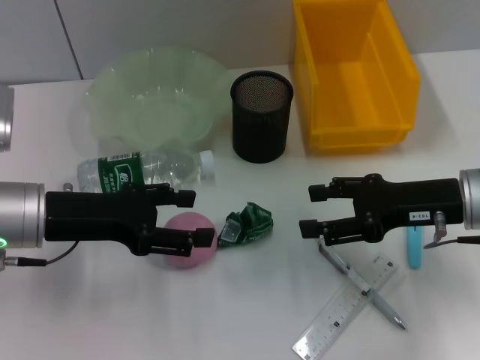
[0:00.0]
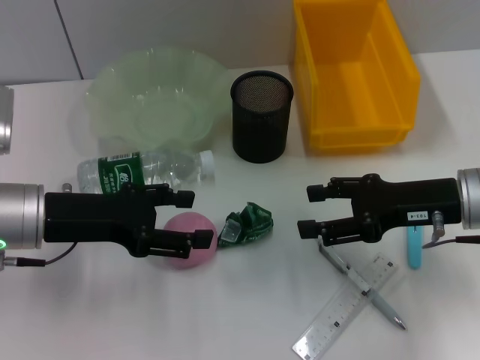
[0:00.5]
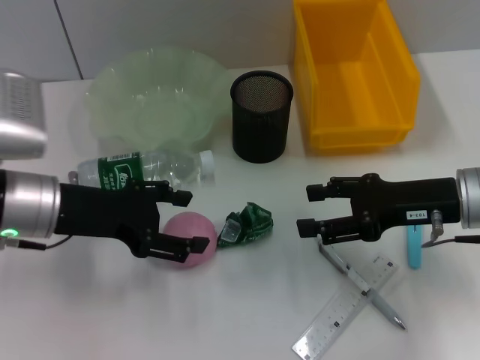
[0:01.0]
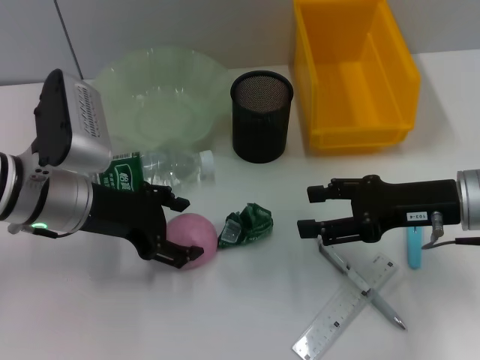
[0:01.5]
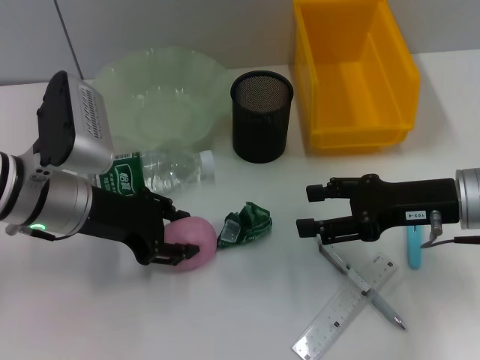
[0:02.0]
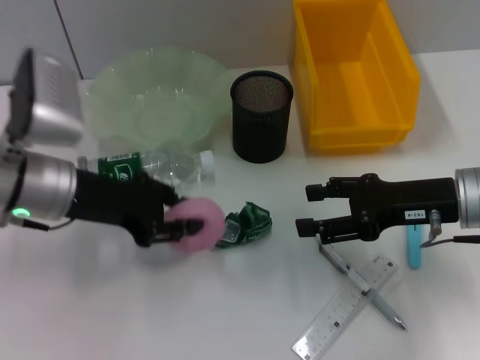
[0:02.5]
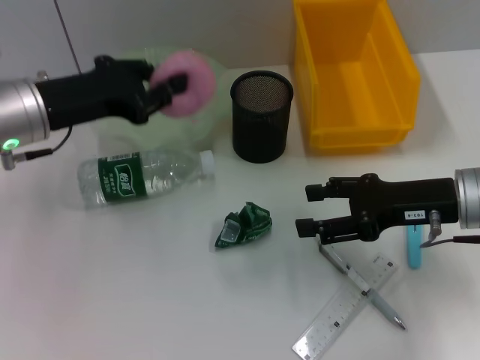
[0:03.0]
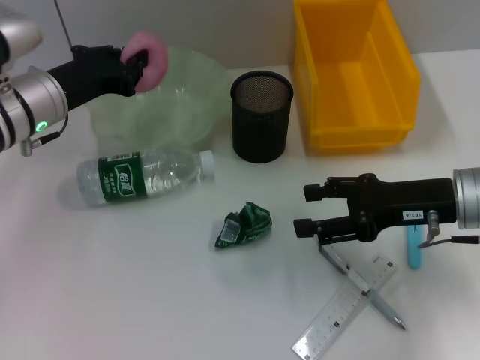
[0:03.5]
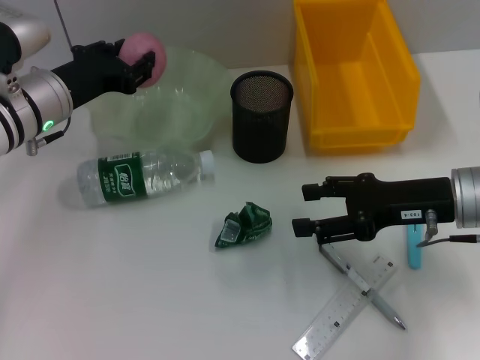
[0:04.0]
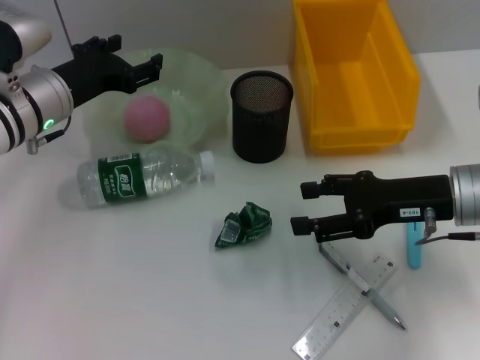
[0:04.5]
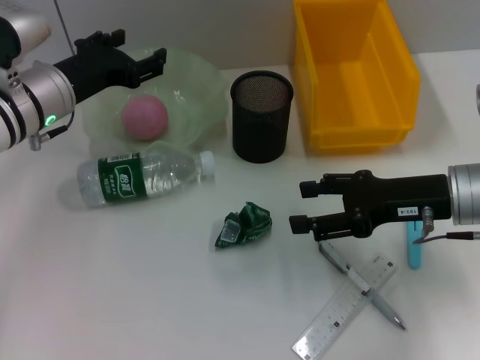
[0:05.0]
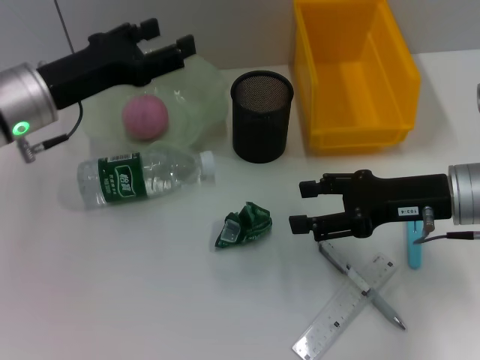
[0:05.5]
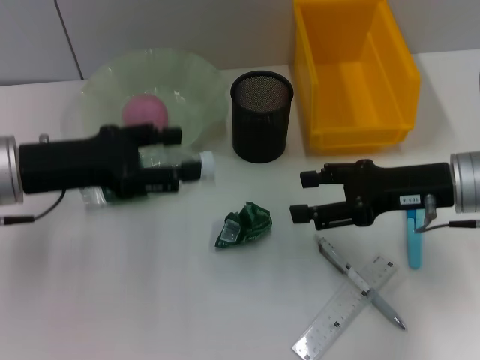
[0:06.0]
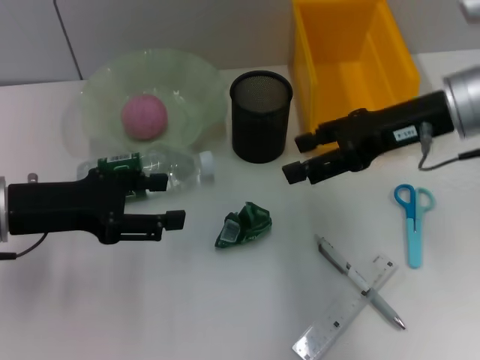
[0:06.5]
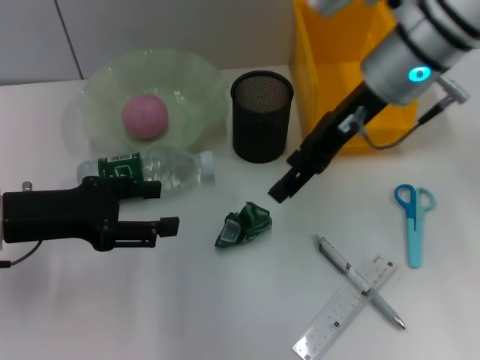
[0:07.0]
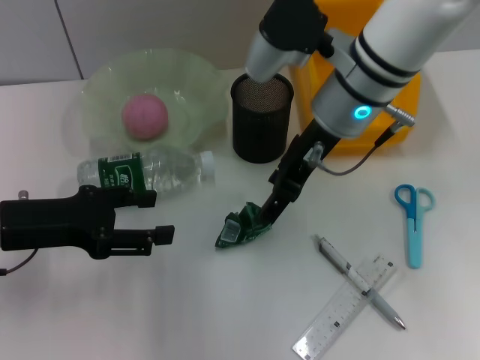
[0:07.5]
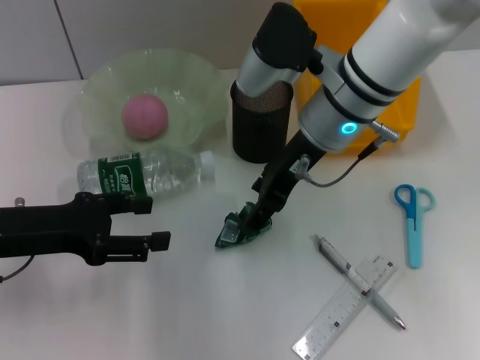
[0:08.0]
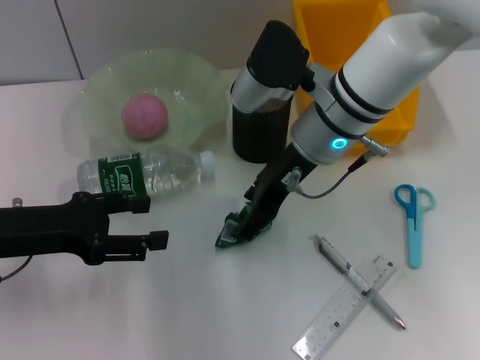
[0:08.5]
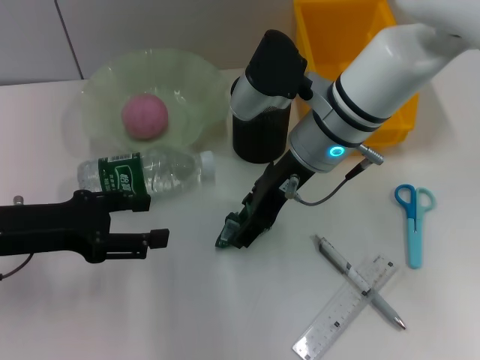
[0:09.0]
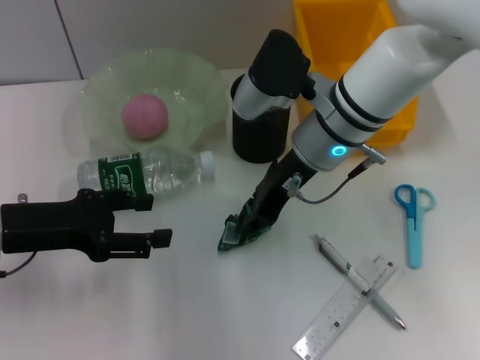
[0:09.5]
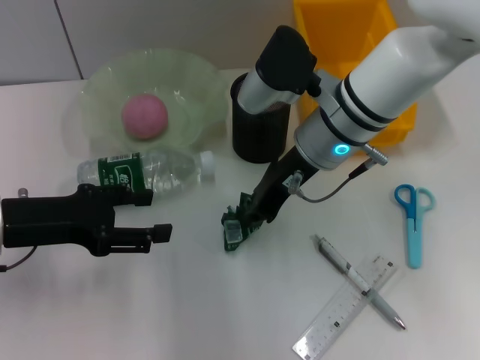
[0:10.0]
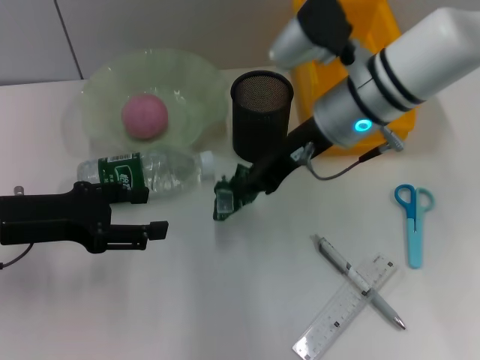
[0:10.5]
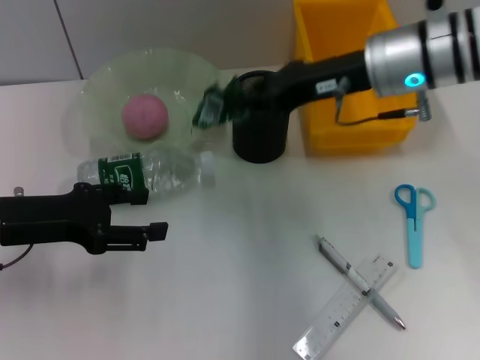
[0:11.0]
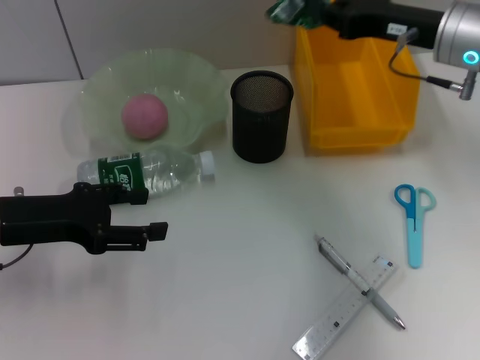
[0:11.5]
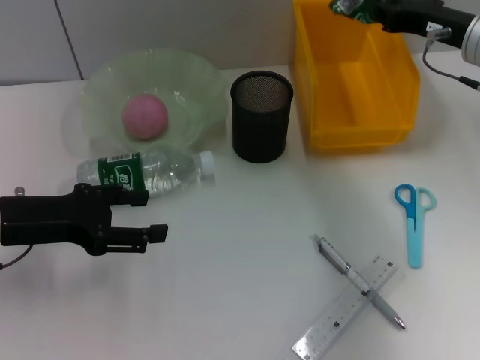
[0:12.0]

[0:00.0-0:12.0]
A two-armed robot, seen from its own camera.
Step, 0:00.0 to 0:01.5: Grab the peach with the left hand.
Step, 0:02.5 to 0:04.5: Place the peach into the fruit bowl with the left hand.
Step, 0:05.0 to 0:09.5: Grab the plastic with the right hand.
0:00.0 to 0:02.0: The left gripper closes up.
0:02.0 to 0:04.0: The left gripper heads forward, covering about 10 cm, and closes its fingers.
0:04.0 to 0:06.0: The left gripper moves backward, roughly 10 cm, and opens.
0:06.0 to 0:08.0: The right gripper heads to the left and forward, covering some 15 cm. Meanwhile the left gripper moves approximately 5 cm.
0:08.0 to 0:10.0: The right gripper closes up.
0:10.0 to 0:12.0: The right gripper travels to the right by about 20 cm.

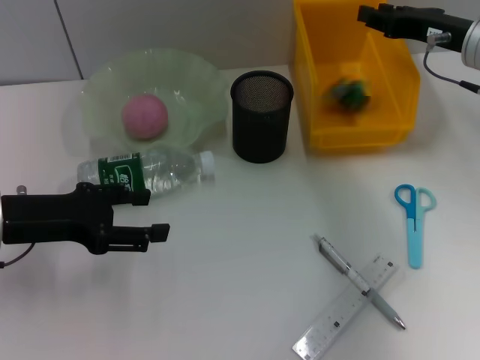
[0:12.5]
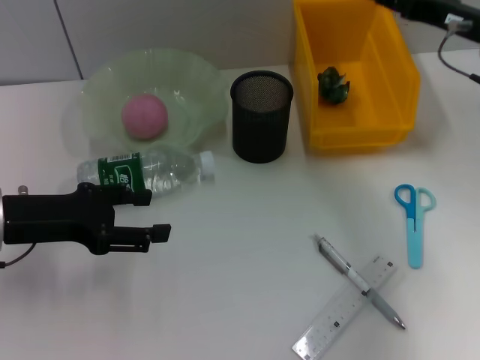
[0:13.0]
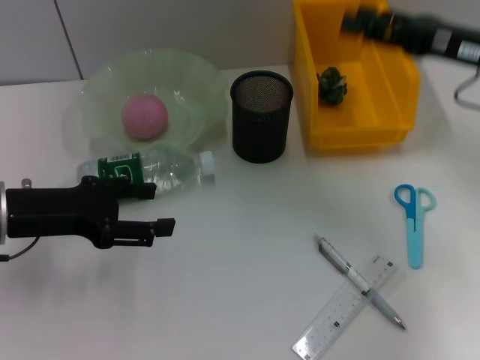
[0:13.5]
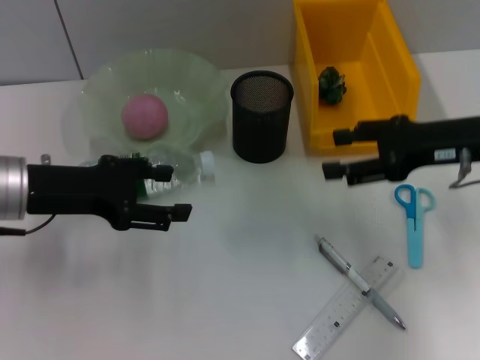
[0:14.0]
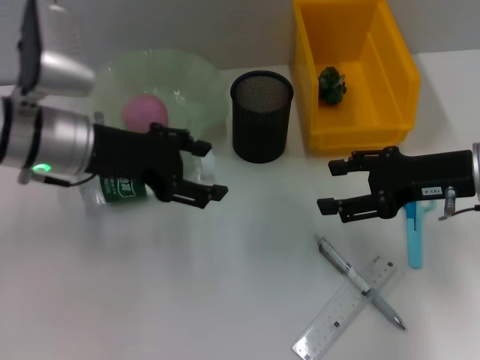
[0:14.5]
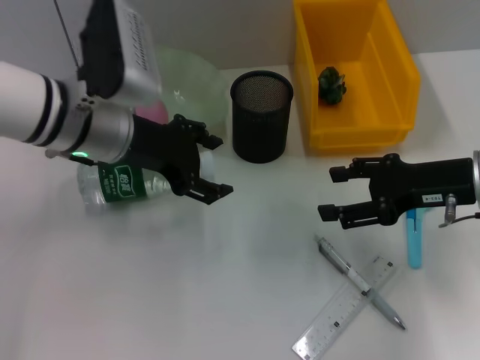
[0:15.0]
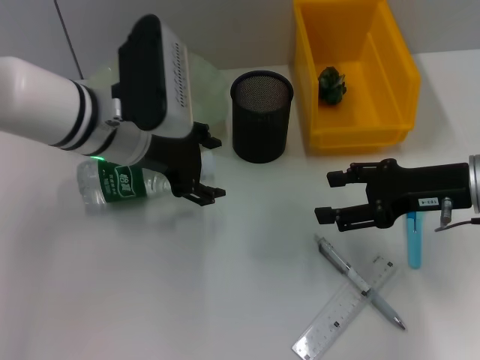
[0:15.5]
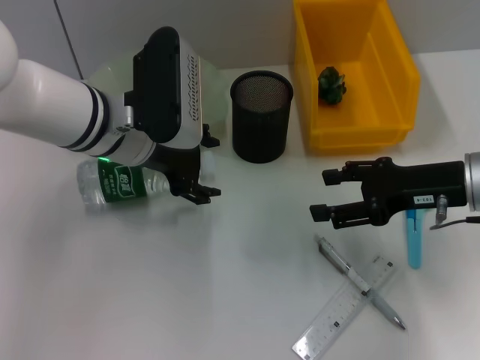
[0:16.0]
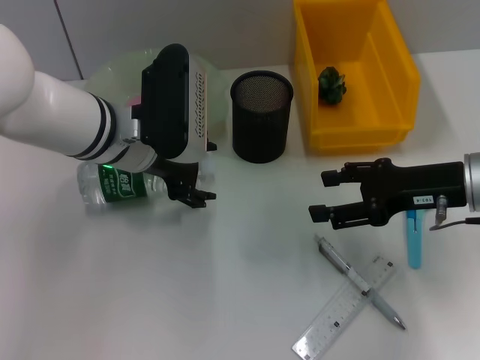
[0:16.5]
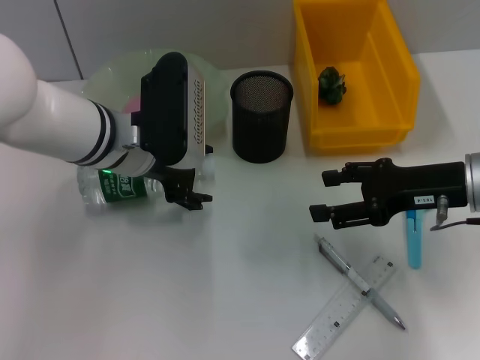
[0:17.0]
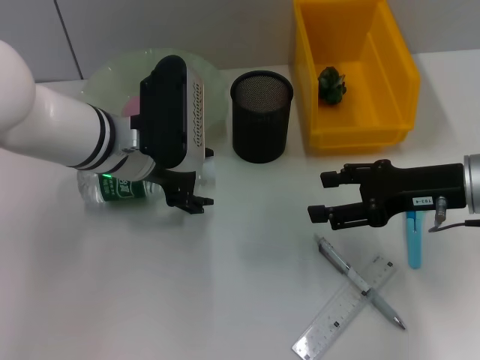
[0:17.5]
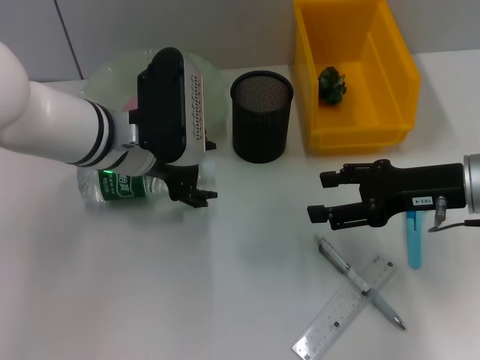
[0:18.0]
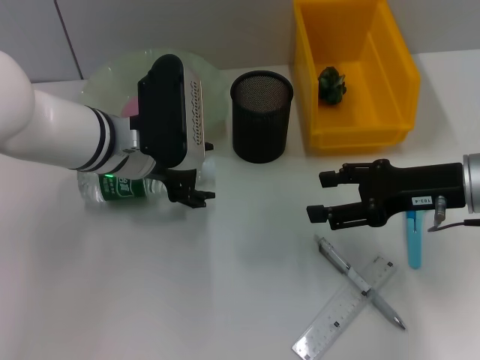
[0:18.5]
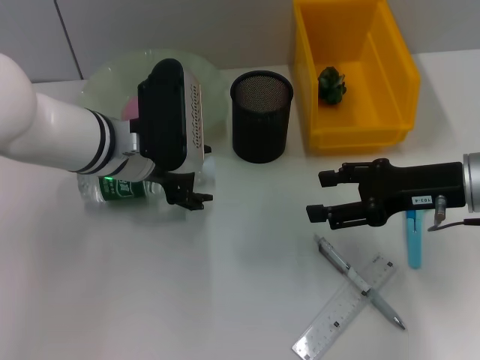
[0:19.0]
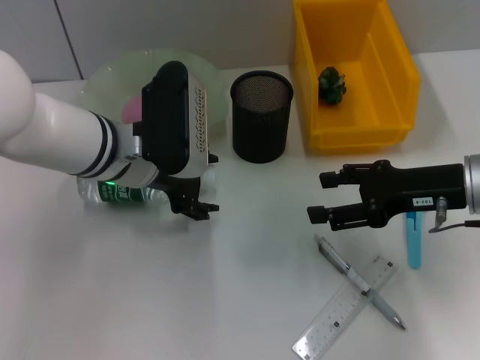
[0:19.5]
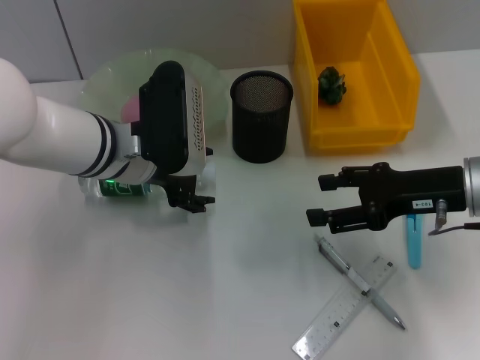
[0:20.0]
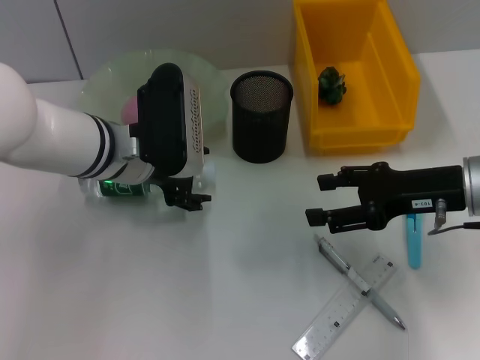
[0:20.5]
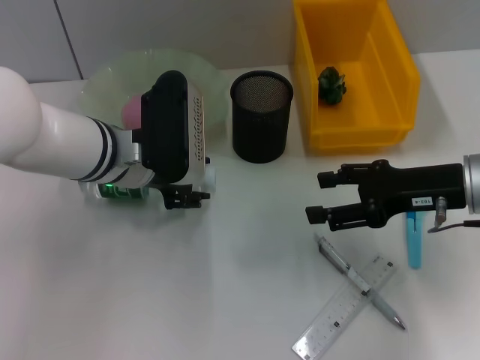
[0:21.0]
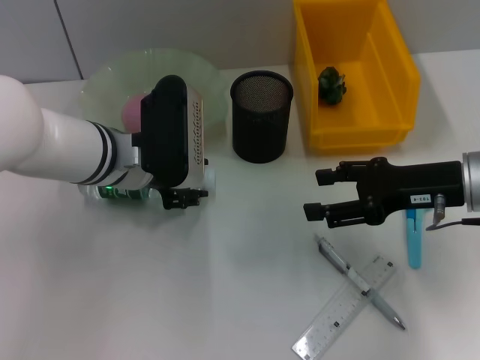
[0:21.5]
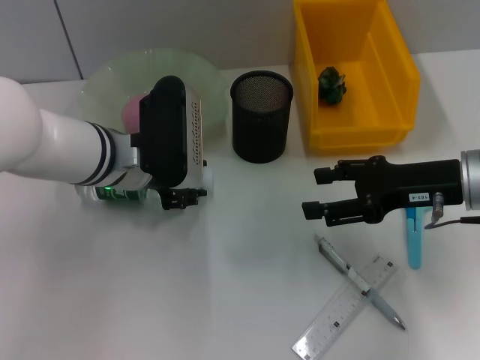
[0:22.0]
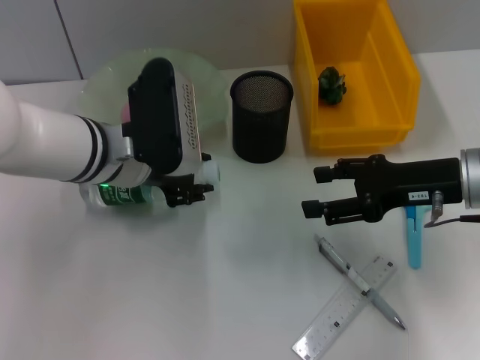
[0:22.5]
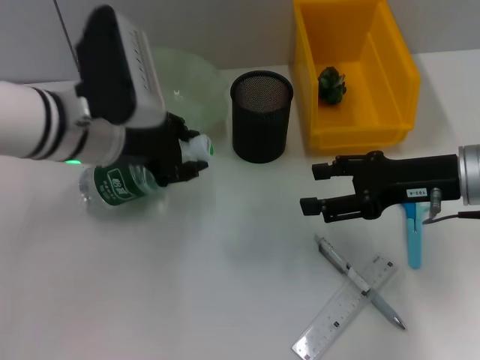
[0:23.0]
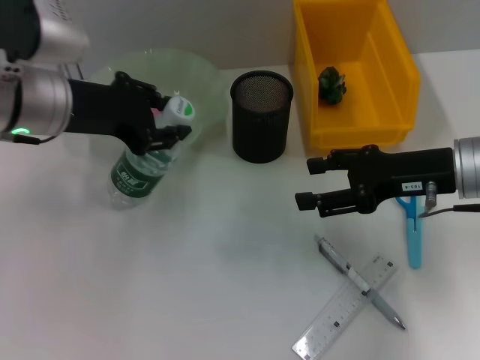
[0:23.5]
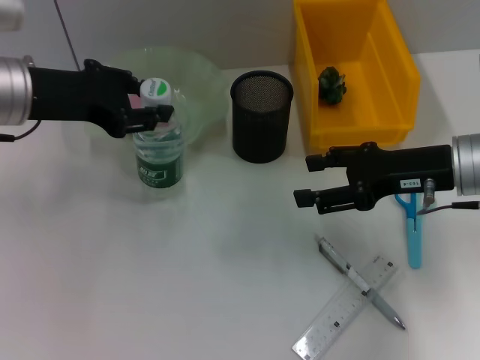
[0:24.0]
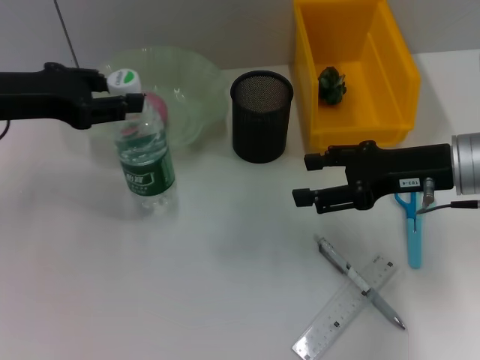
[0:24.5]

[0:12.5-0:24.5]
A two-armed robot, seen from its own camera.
Step, 0:13.0 to 0:22.0: Grab the water bottle with the left hand.
0:12.5 to 0:14.5: The left gripper is displaced to the right and forward by some 10 cm. Meanwhile the right gripper travels backward by approximately 10 cm, and opens up.
0:14.5 to 0:16.5: The left gripper shifts some 5 cm to the right.
0:16.5 to 0:18.5: Both grippers stay about where they are.
0:18.5 to 0:20.5: The two grippers keep their place.
0:20.5 to 0:22.5: The left gripper closes up.
0:22.5 to 0:24.5: The left gripper shifts some 15 cm to the left and upward.

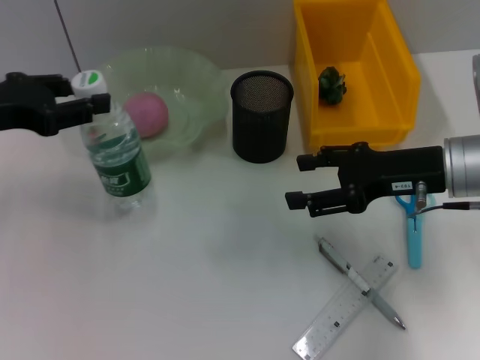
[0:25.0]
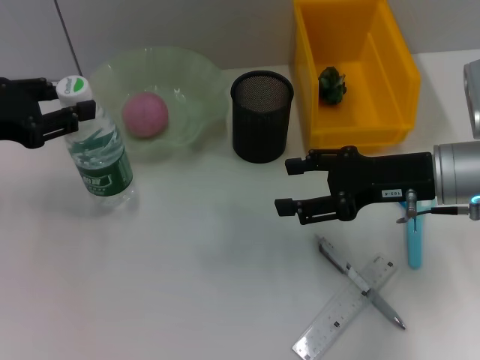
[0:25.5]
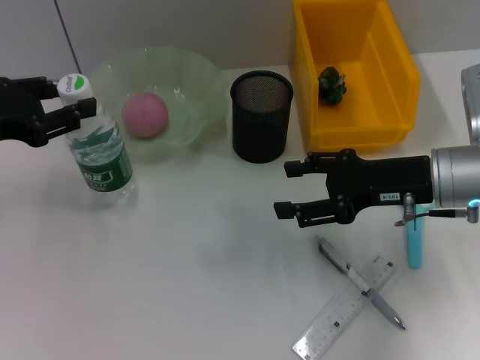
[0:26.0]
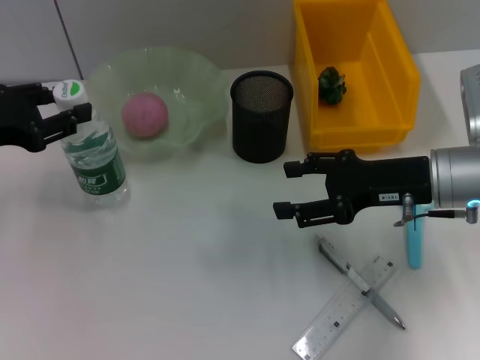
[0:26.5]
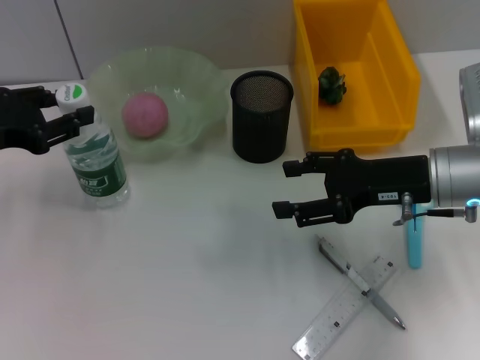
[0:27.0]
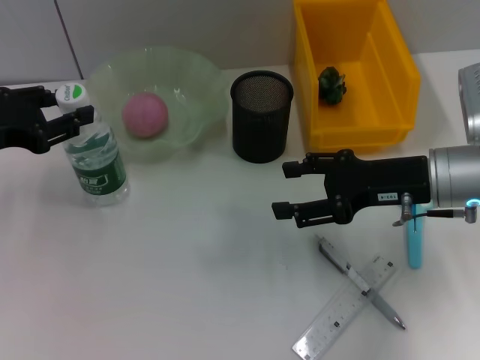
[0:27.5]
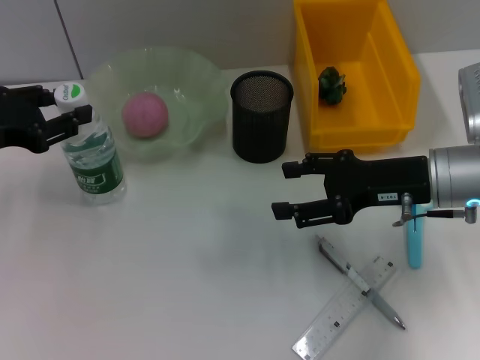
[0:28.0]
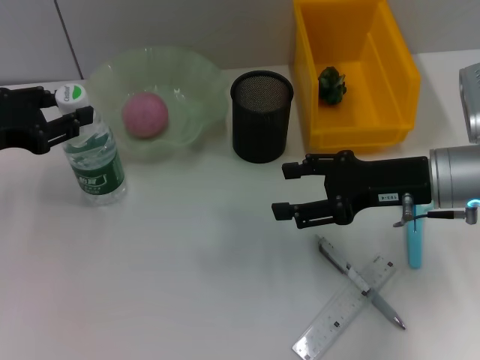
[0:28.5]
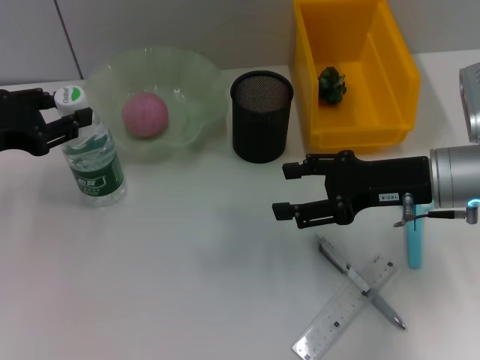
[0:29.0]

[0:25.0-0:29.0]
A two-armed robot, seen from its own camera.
0:25.0 to 0:27.0: There are only small adjustments of the grippers.
0:27.0 to 0:29.0: Both grippers stay about where they are.
